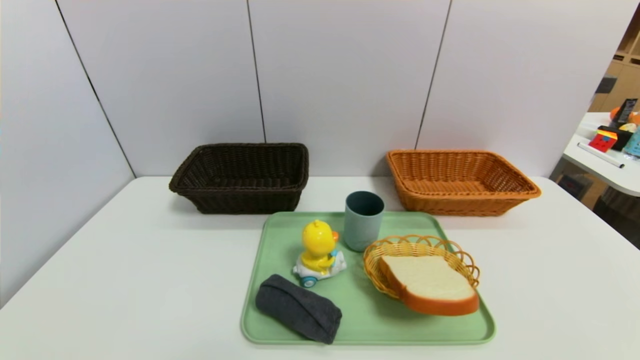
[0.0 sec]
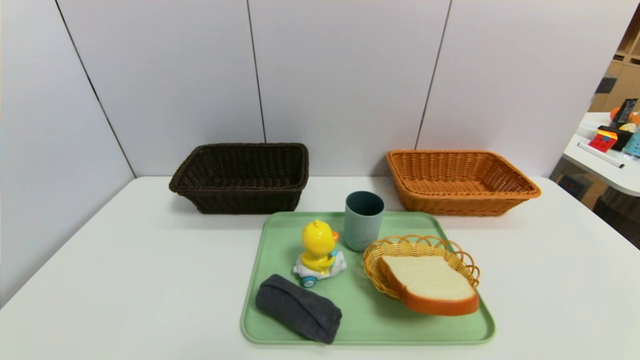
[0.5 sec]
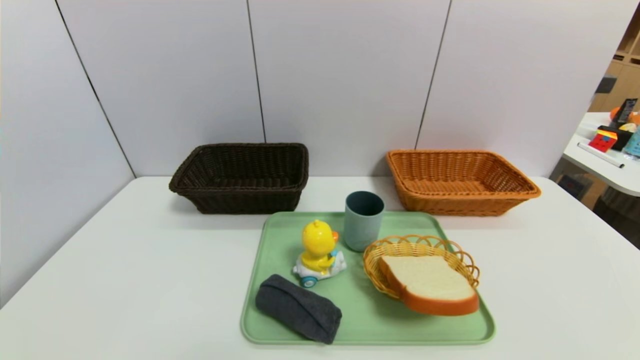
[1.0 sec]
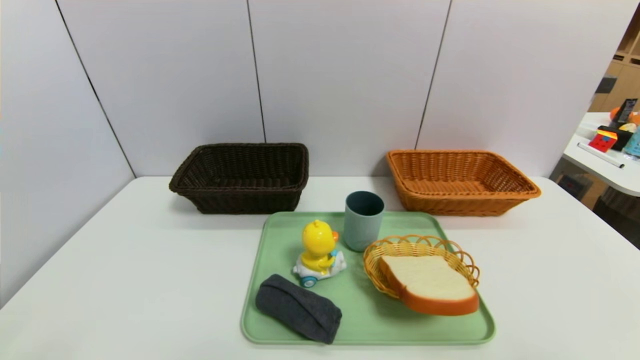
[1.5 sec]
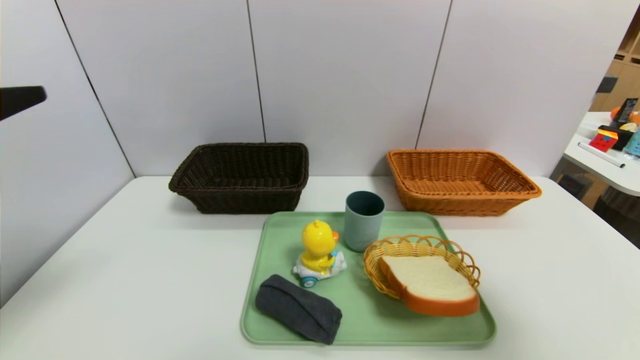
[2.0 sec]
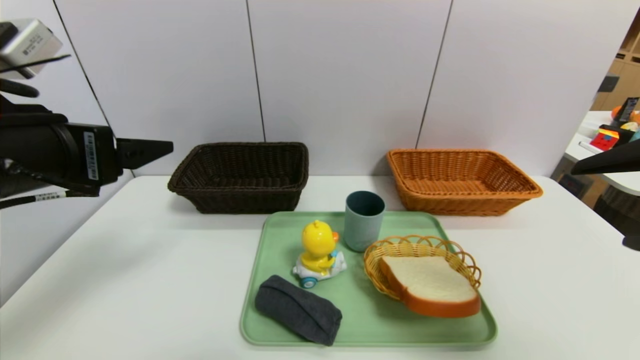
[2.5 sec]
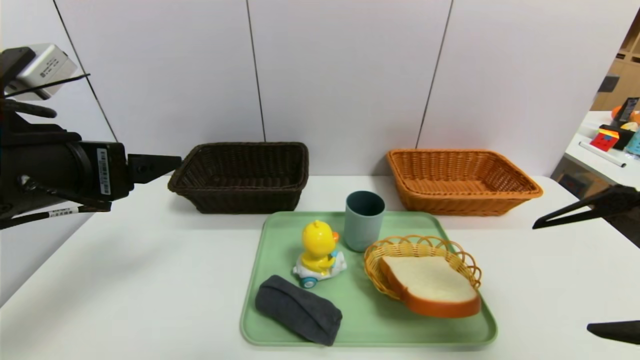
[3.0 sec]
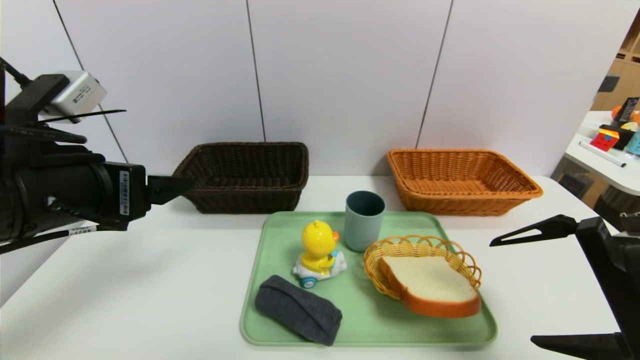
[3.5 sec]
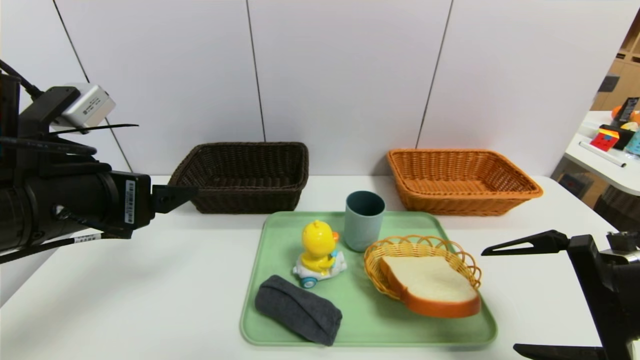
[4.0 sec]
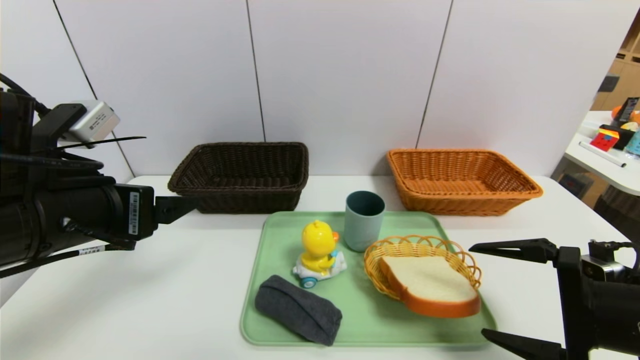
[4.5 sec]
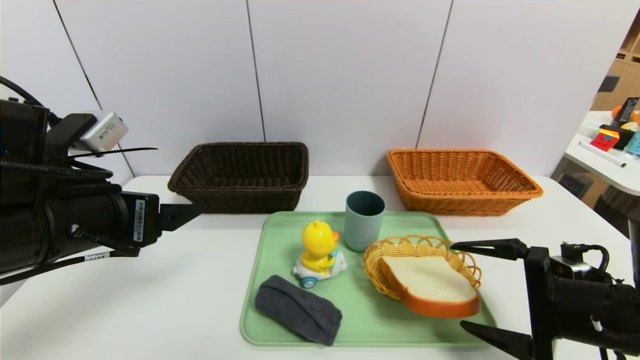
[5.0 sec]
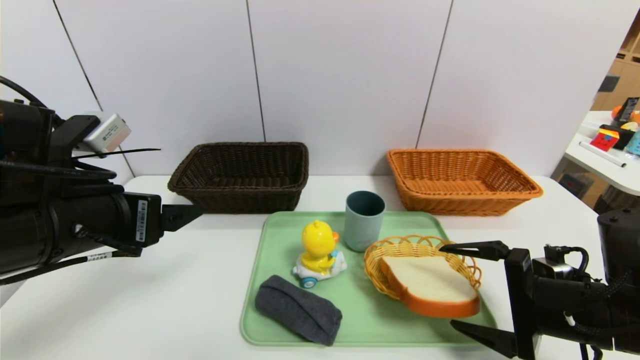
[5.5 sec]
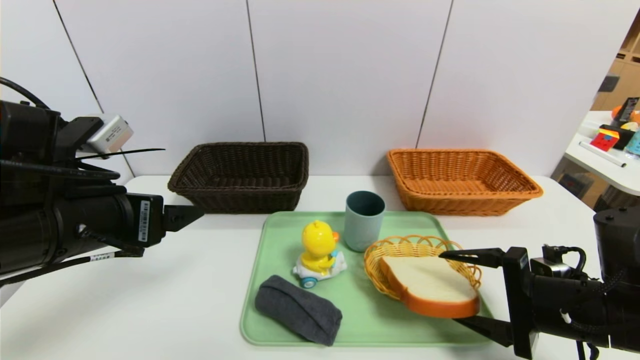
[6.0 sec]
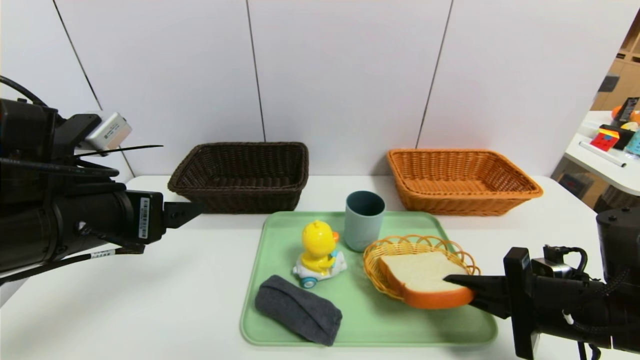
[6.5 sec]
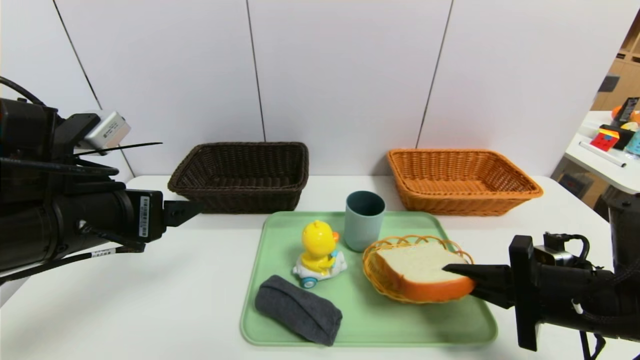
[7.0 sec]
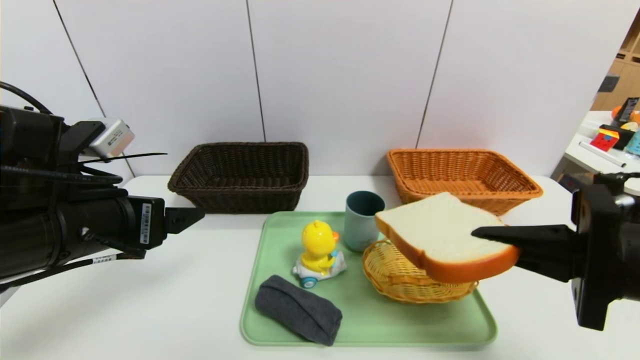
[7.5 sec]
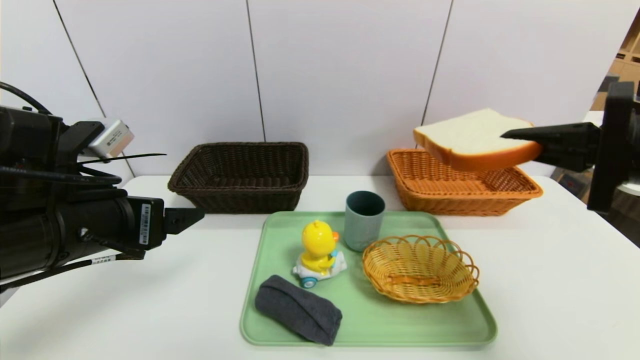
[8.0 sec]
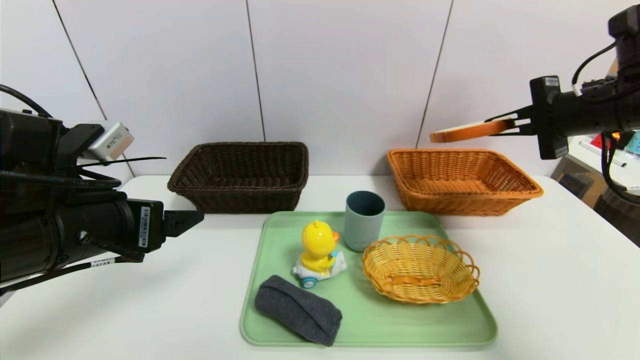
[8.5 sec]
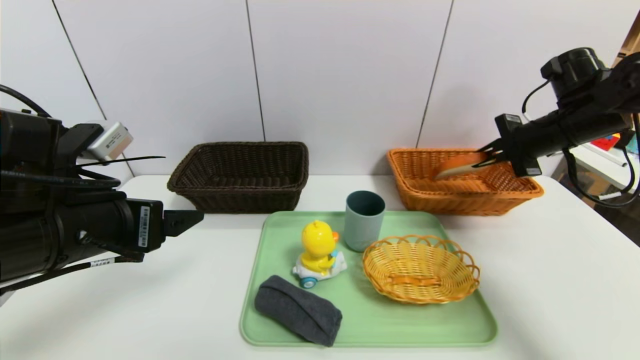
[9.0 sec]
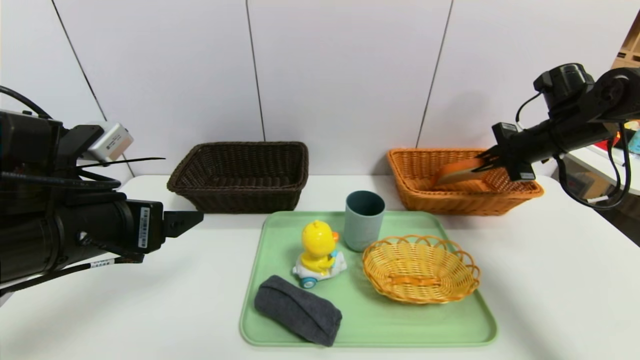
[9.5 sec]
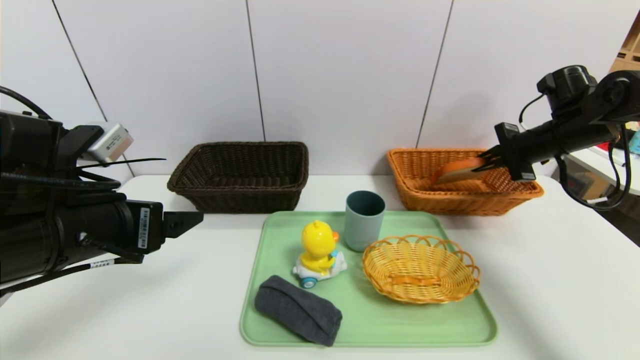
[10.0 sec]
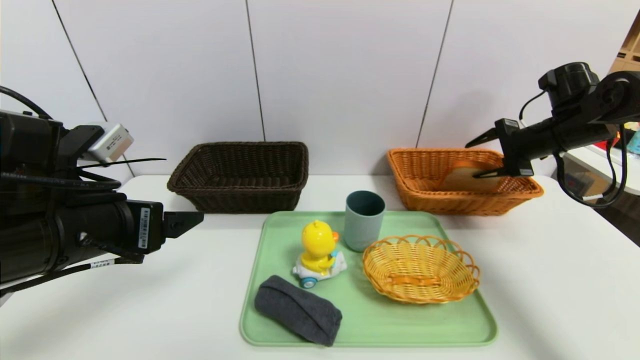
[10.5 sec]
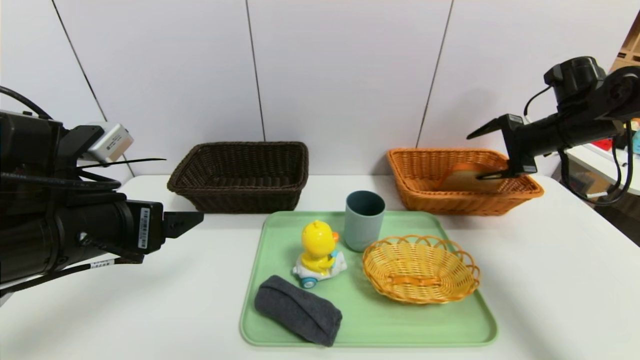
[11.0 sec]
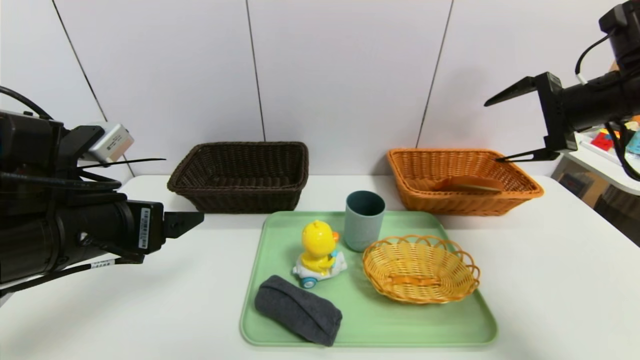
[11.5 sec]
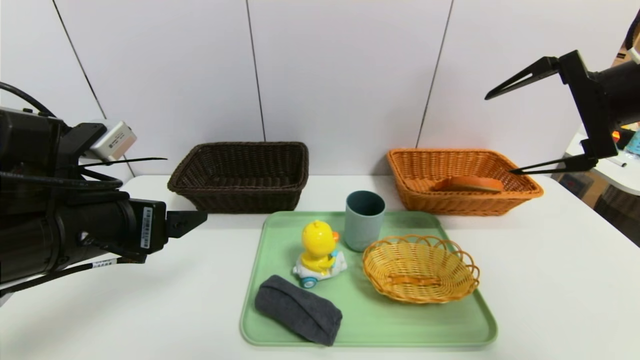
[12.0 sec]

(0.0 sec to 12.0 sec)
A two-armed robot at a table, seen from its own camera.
Task of the whole recording: place the food in the right basket with the right gripper, and place the non food items in the left basket with the left gripper.
Step, 0.0 sec - 11.5 sec: Grasp the bread slice and put it in the right basket.
0.0 sec - 2.0 sec: The left gripper moves upward and forward, some 30 cm. Meanwhile the right gripper heads upward, covering about 25 cm.
2.0 sec - 4.0 sec: The left gripper goes roughly 10 cm downward, forward and to the right, while the right gripper moves downward, forward and to the left, some 15 cm.
4.0 sec - 6.0 sec: The right gripper shifts approximately 5 cm downward.
6.0 sec - 8.0 sec: The right gripper moves upward, roughly 15 cm, and closes its fingers.
8.0 sec - 10.0 sec: The right gripper heads forward, covering about 20 cm.
10.0 sec - 12.0 sec: The right gripper shifts some 20 cm backward, upward and to the left, and opens up.

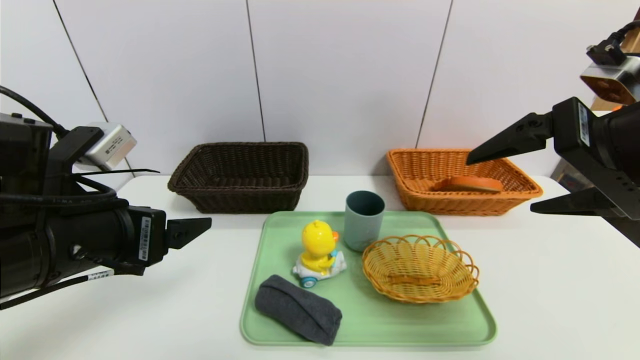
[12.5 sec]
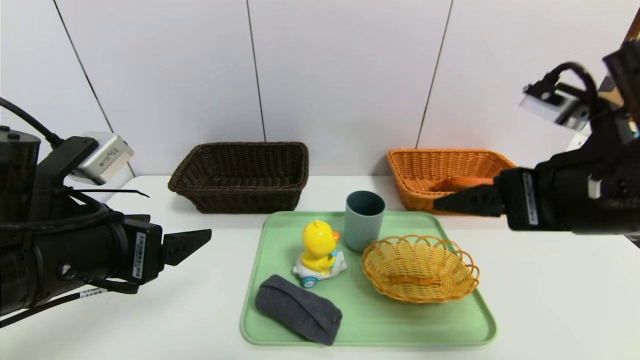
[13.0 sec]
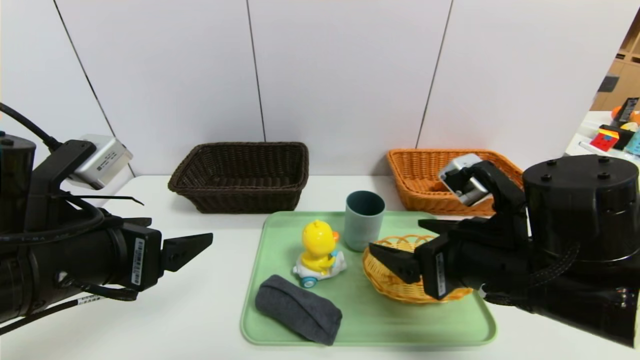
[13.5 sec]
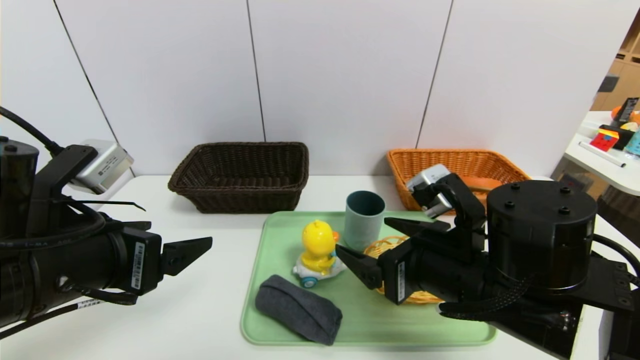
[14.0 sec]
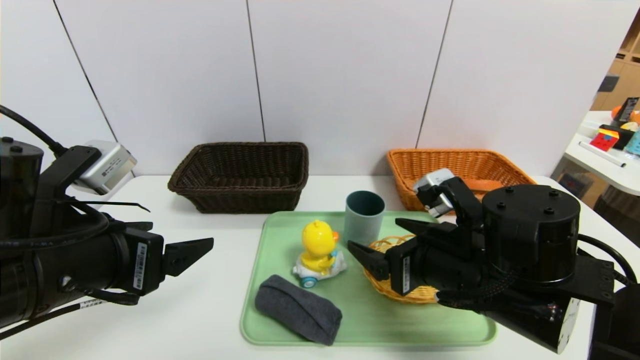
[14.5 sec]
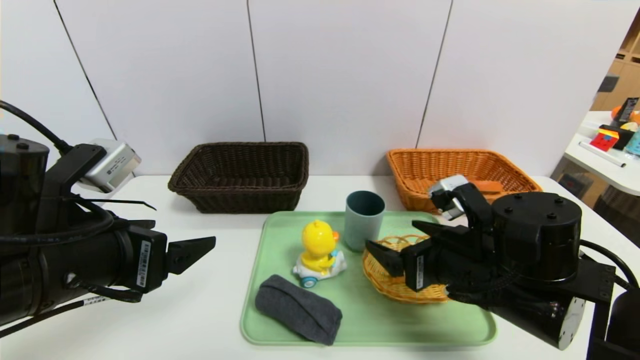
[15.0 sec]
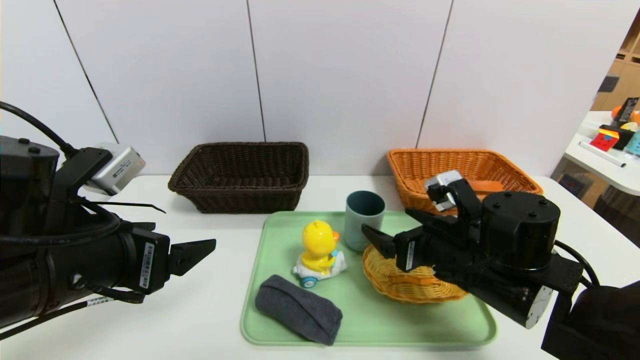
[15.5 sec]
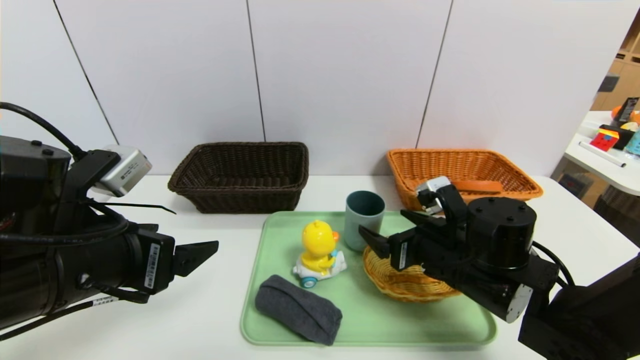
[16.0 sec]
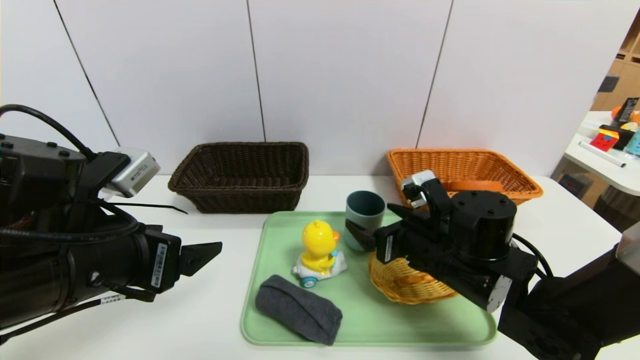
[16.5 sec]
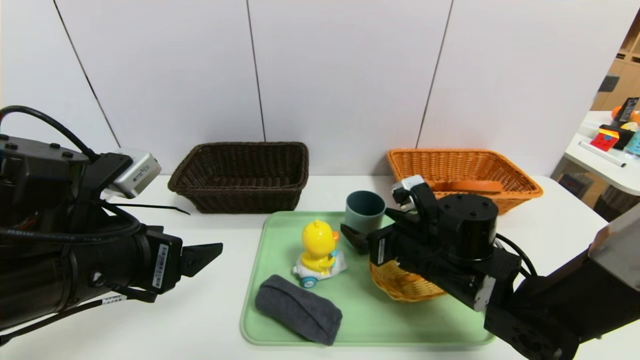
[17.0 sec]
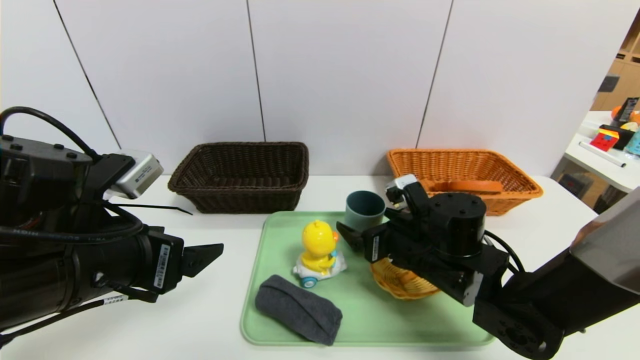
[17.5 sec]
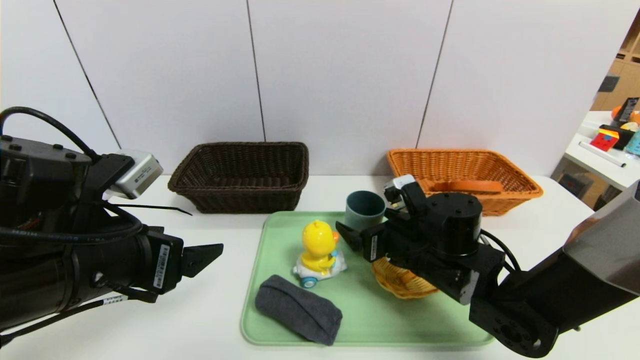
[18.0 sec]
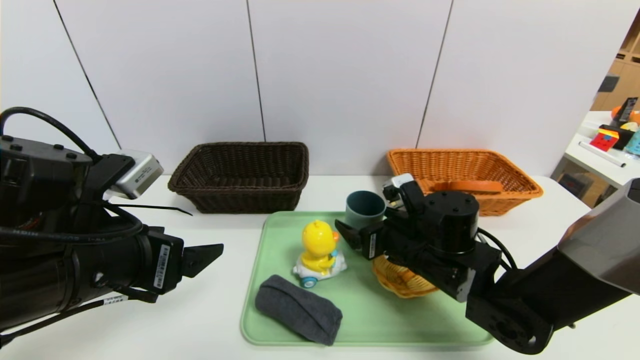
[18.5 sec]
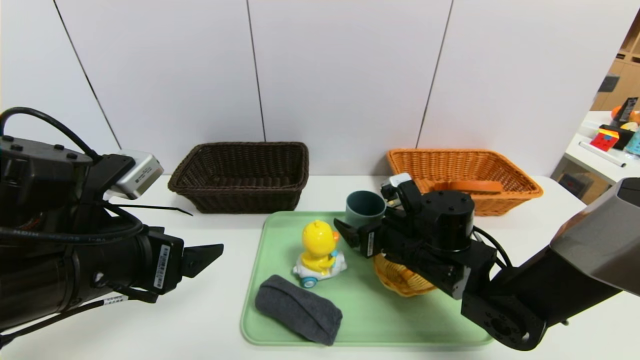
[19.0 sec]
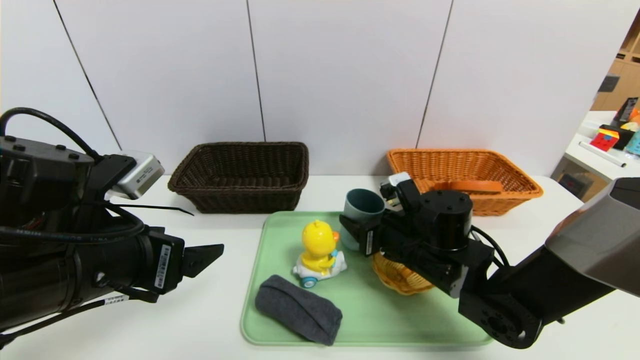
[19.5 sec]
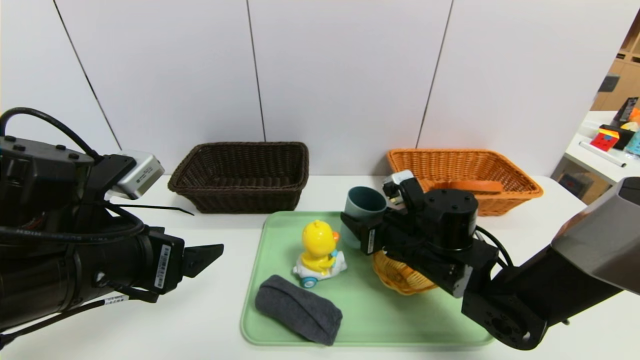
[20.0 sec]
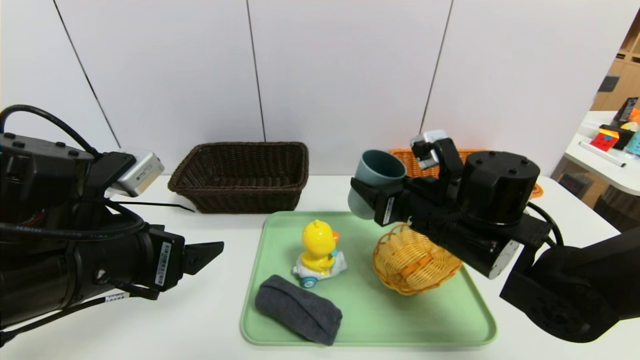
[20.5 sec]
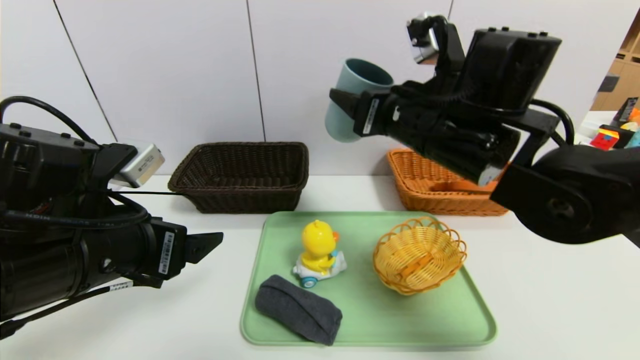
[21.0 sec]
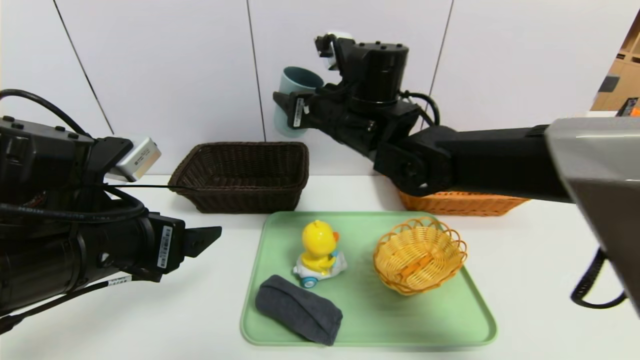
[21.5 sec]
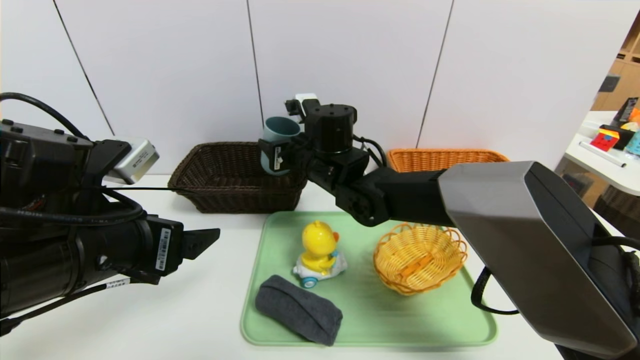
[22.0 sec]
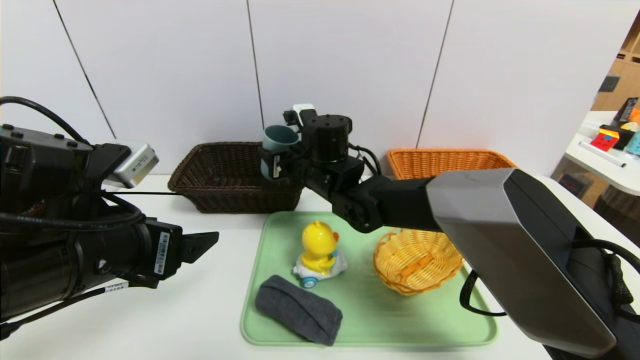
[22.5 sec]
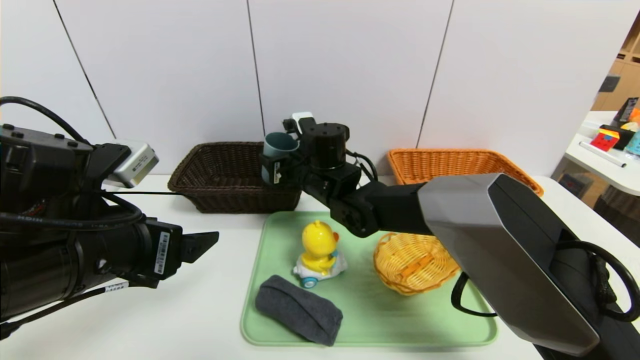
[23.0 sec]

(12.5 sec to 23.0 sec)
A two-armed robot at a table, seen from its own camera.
Task of the whole recording: place the food in the right basket with the right gripper, and place the non food items in the left basket with the left gripper.
12.5 sec - 14.5 sec: The right gripper shifts approximately 20 cm downward and to the left.
14.5 sec - 16.5 sec: The right gripper moves forward, approximately 5 cm.
16.5 sec - 19.0 sec: The grippers stay close to where they were, moving slightly.
19.0 sec - 21.0 sec: The right gripper travels upward by some 20 cm, and closes its fingers.
21.0 sec - 23.0 sec: The right gripper moves downward, to the left and forward, roughly 20 cm.
